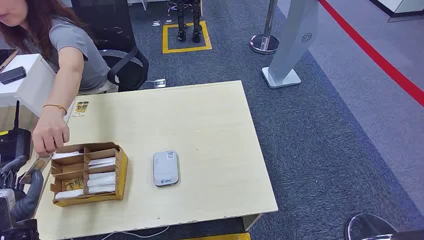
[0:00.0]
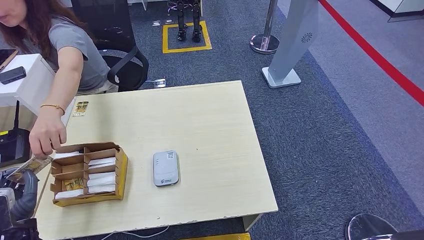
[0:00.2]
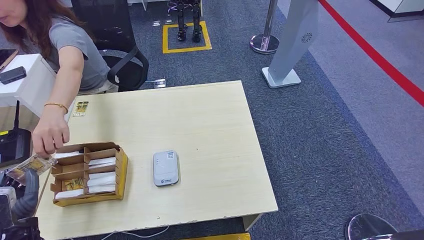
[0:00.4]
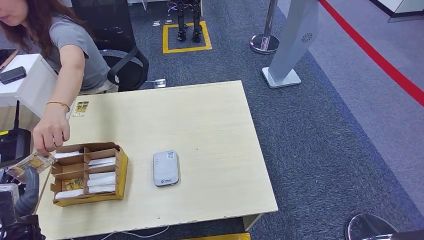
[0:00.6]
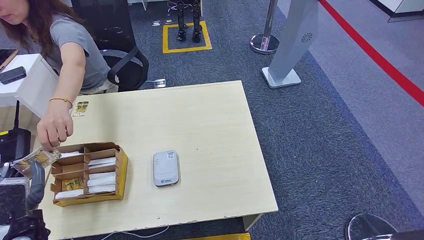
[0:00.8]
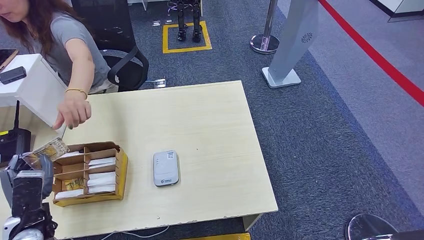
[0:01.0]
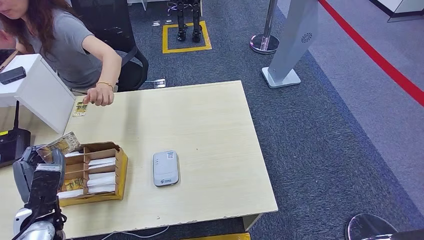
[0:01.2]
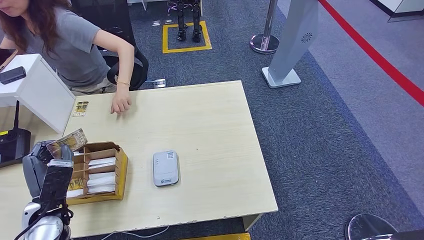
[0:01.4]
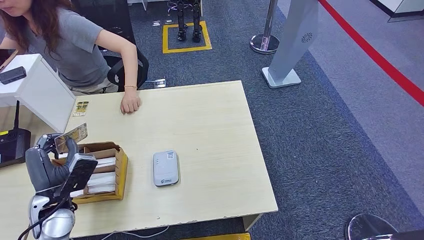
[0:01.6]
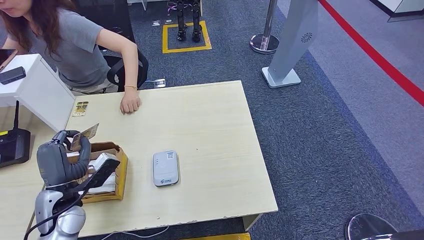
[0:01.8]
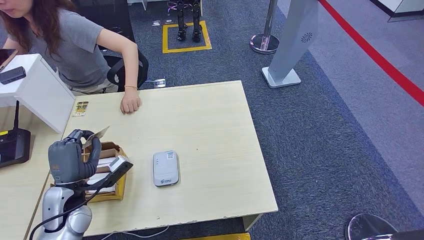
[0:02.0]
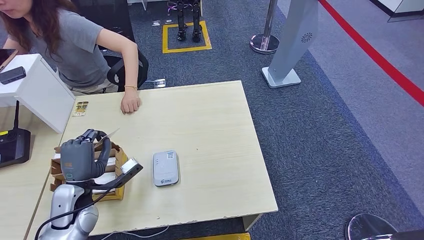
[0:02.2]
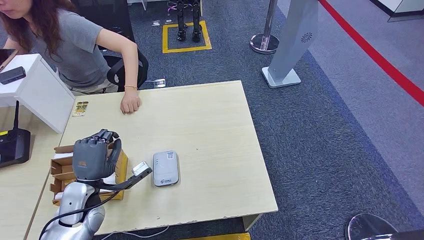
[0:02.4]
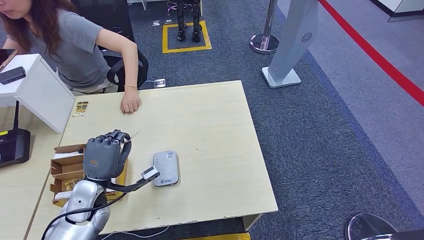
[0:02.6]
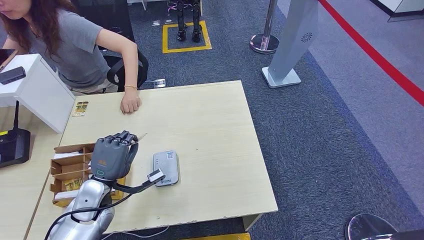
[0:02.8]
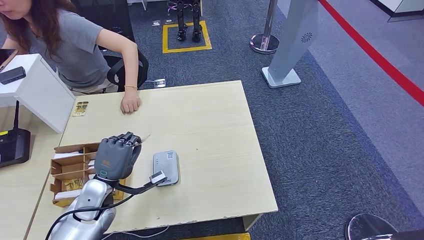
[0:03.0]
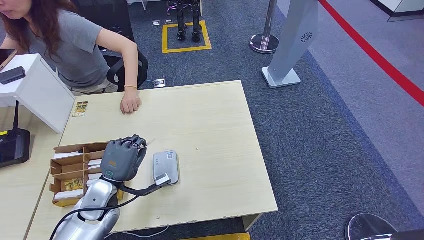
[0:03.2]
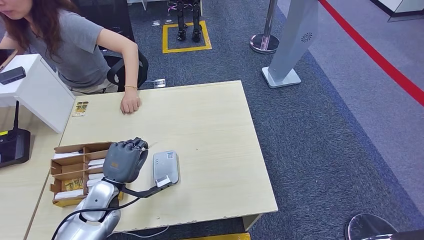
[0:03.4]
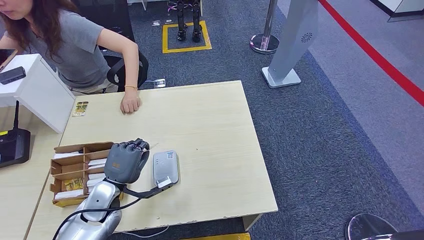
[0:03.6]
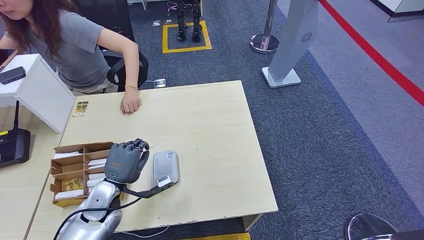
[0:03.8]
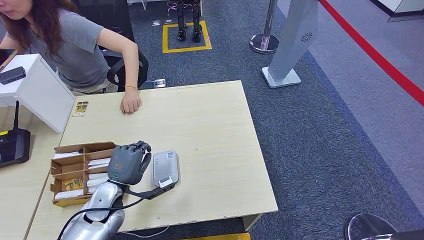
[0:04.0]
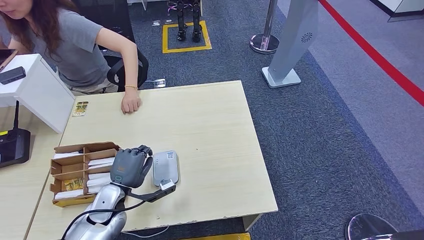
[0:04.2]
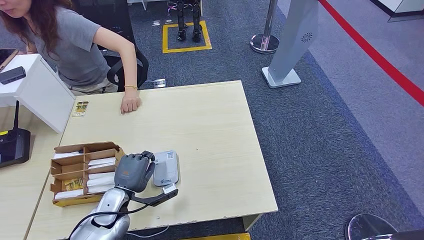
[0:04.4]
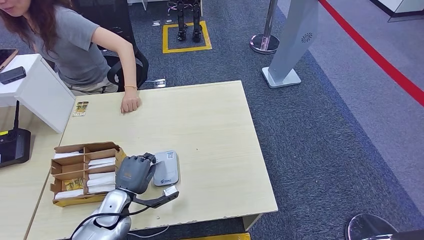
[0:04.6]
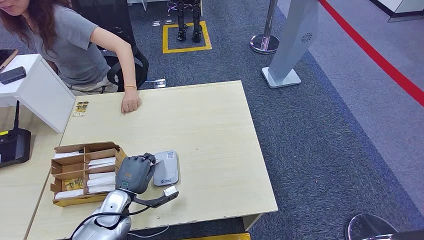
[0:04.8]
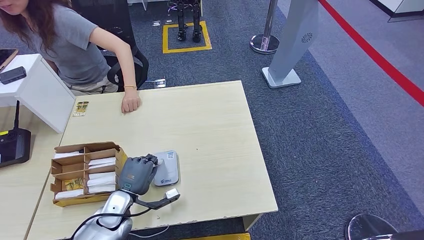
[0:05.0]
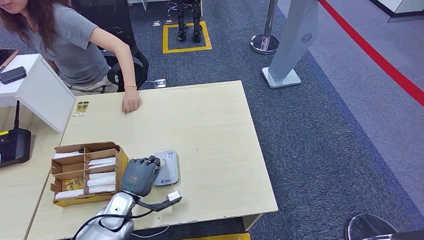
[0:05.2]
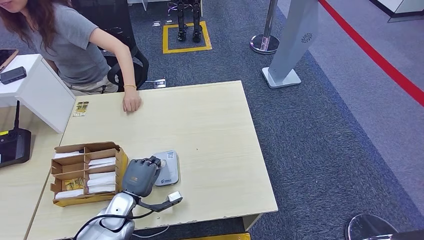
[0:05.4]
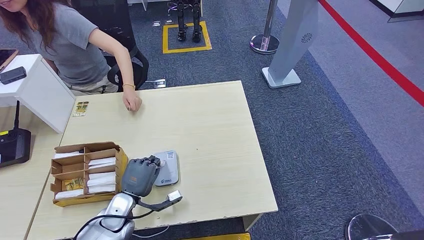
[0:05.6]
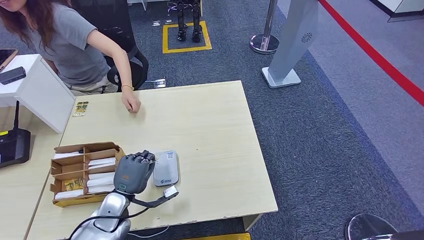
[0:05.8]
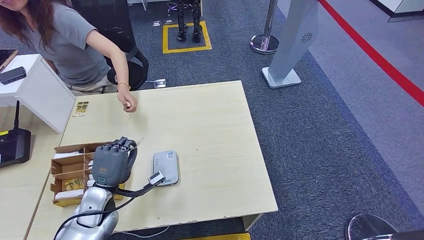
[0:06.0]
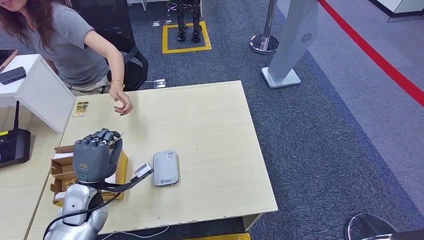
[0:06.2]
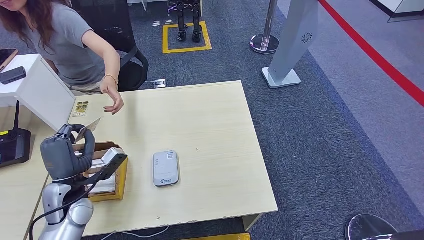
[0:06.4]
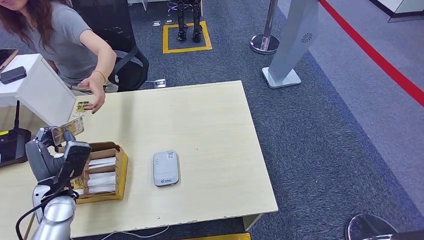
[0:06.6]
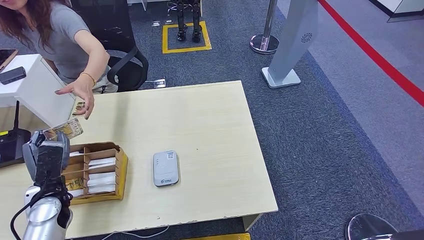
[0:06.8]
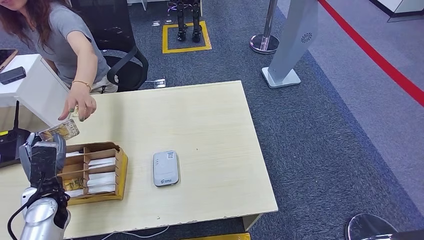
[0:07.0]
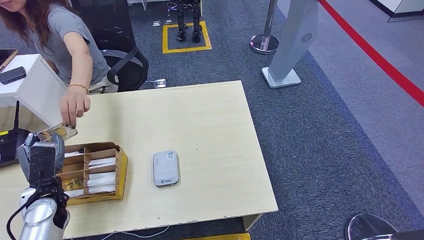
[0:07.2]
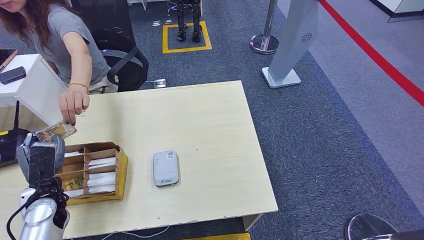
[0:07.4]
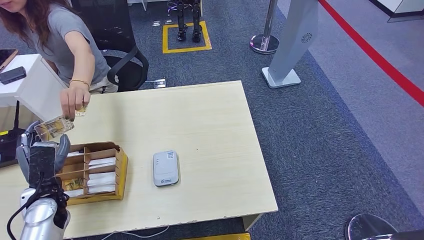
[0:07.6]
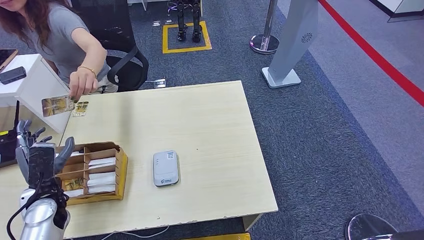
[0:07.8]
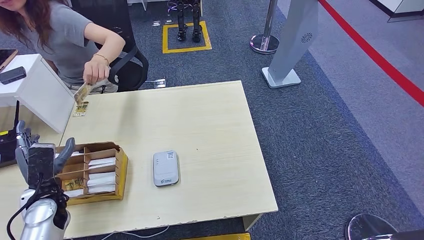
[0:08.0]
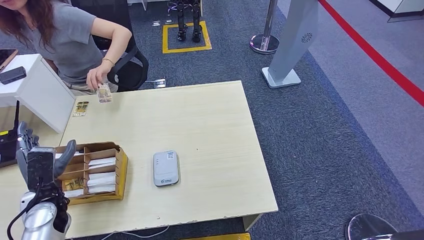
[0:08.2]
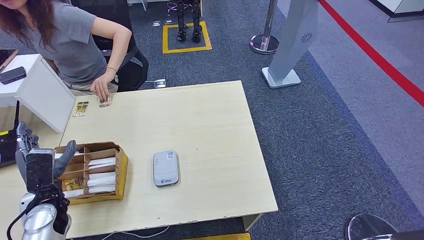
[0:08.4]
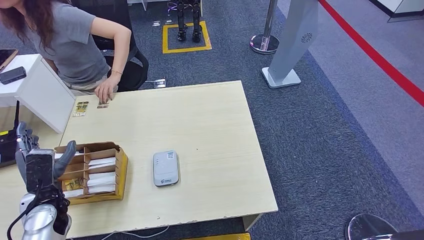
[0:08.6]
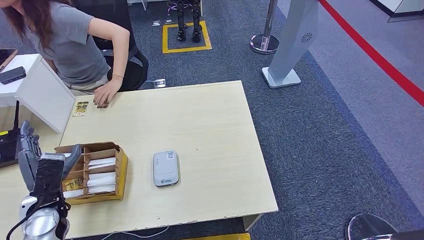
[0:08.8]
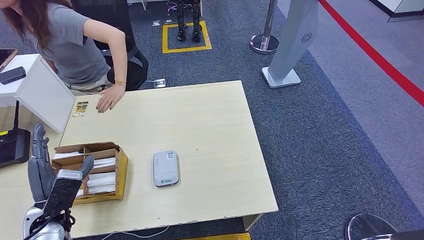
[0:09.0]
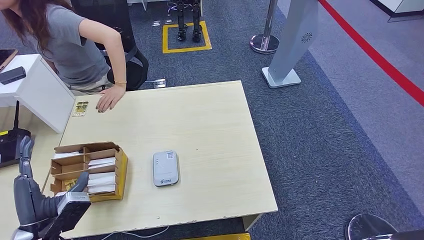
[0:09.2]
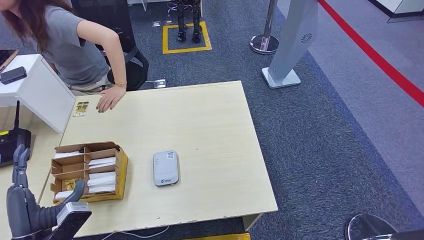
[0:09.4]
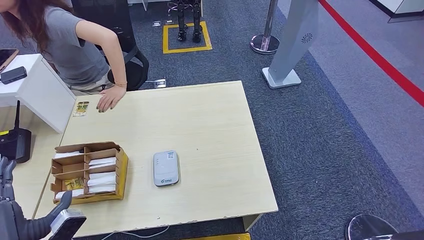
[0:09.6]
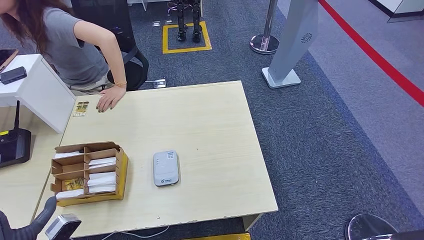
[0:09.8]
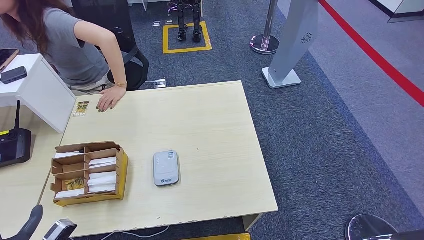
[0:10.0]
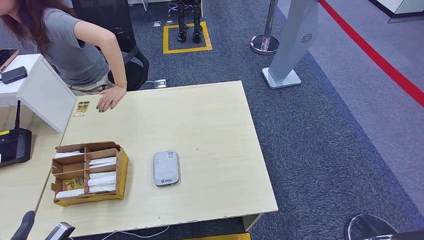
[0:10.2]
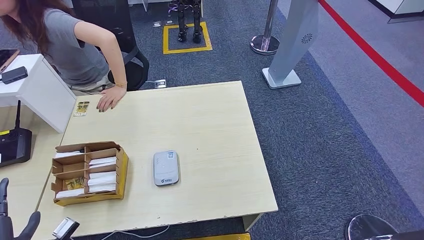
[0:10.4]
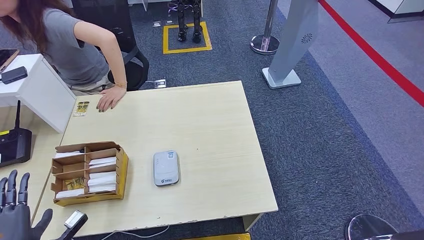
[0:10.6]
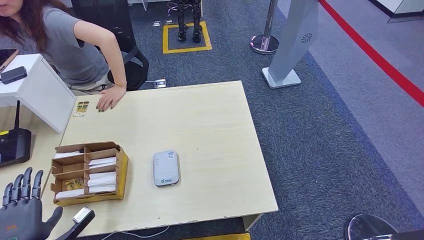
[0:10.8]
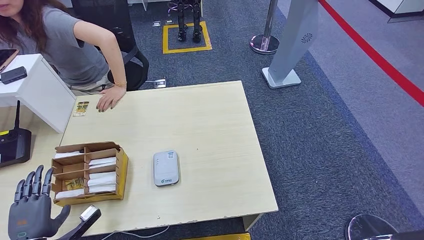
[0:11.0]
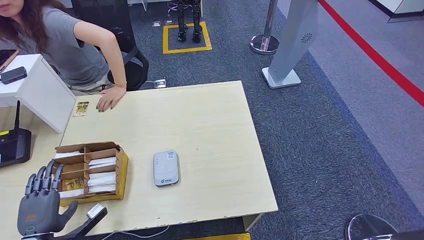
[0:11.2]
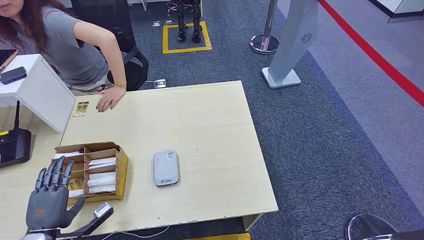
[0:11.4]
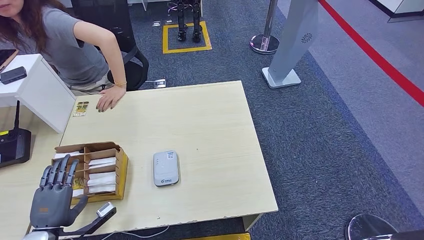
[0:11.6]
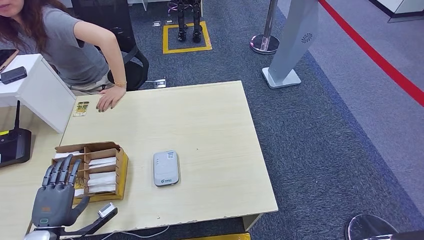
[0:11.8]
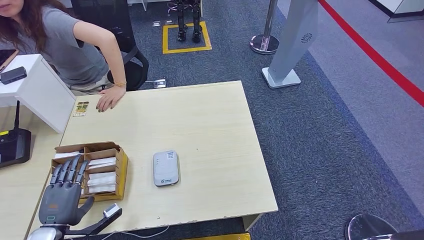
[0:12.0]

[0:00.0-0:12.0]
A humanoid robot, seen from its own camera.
Step, 0:00.0 to 0:01.0: Take the ID card from the person's hand.
Step, 0:01.2 to 0:05.2: Place the ID card on the card reader.
Step, 0:05.4 to 0:07.4: Hand the ID card to the person.
0:01.6 to 0:03.0: The left hand is displaced to the right by approximately 10 cm.
0:03.0 to 0:04.4: The left hand goes about 5 cm downward.
0:06.0 to 0:07.6: The left hand moves to the left, approximately 10 cm.
0:07.6 to 0:09.0: The left hand travels backward by approximately 5 cm.
0:09.0 to 0:10.4: The left hand moves backward and to the left, some 15 cm.
0:10.4 to 0:12.0: The left hand moves forward, approximately 5 cm.

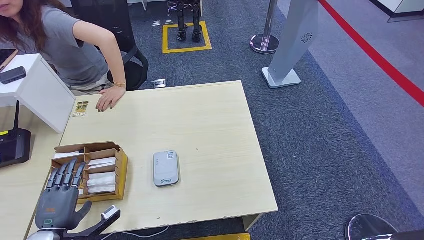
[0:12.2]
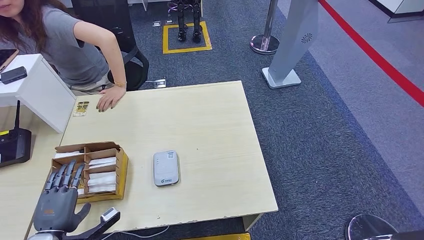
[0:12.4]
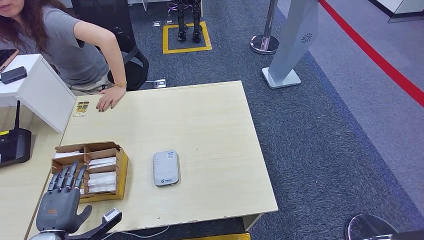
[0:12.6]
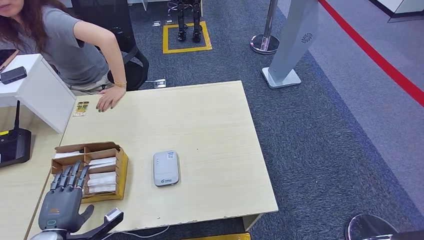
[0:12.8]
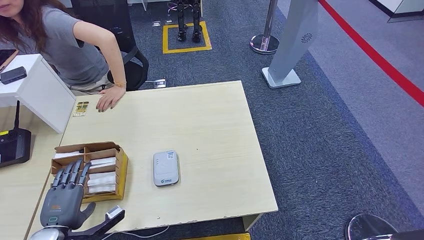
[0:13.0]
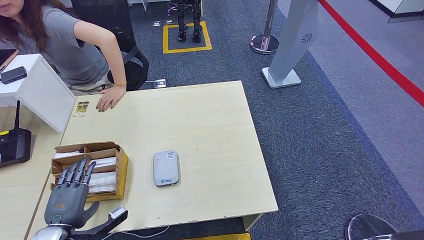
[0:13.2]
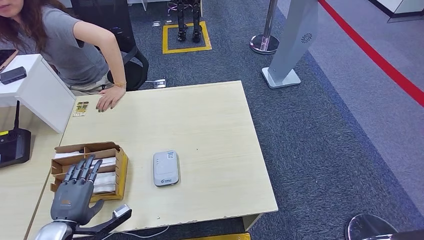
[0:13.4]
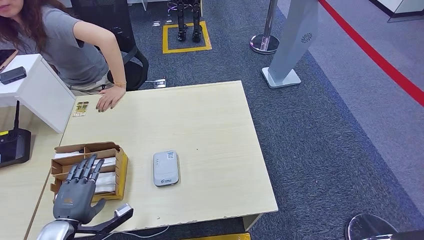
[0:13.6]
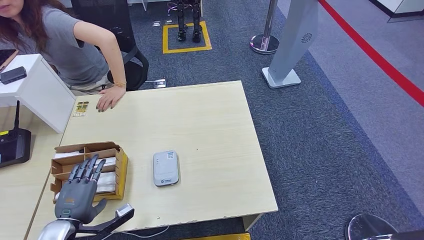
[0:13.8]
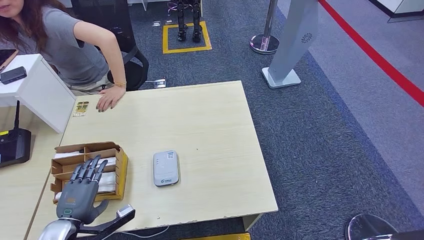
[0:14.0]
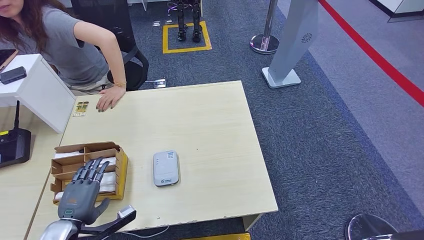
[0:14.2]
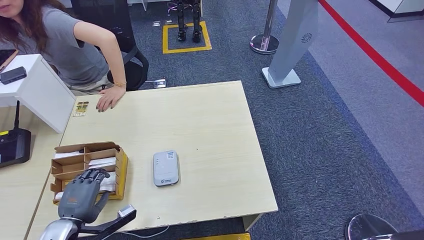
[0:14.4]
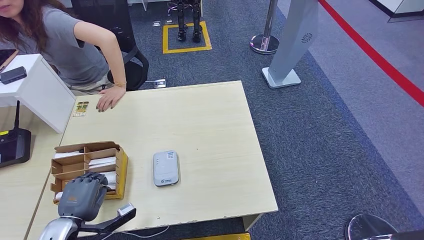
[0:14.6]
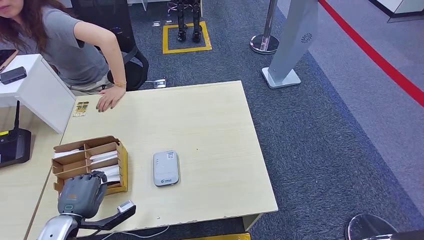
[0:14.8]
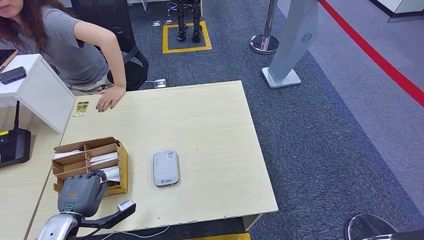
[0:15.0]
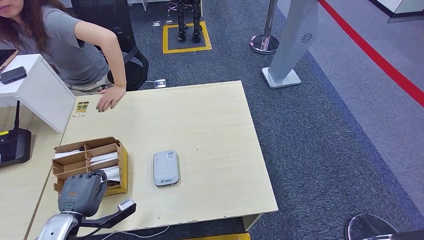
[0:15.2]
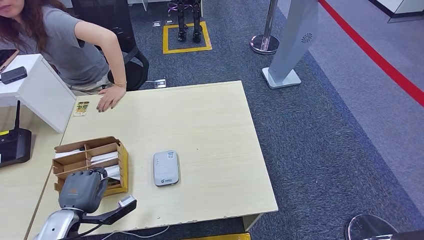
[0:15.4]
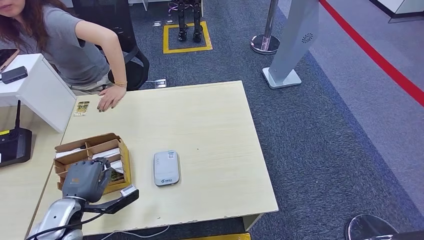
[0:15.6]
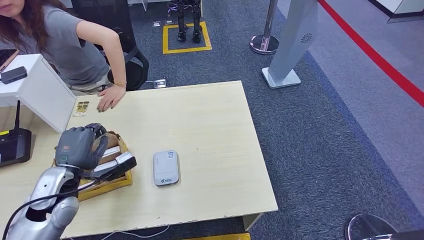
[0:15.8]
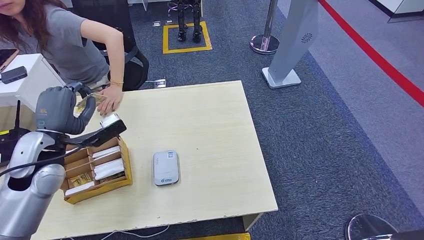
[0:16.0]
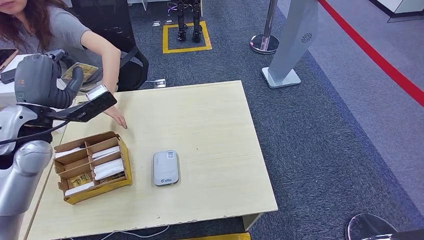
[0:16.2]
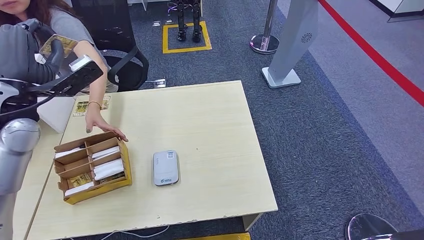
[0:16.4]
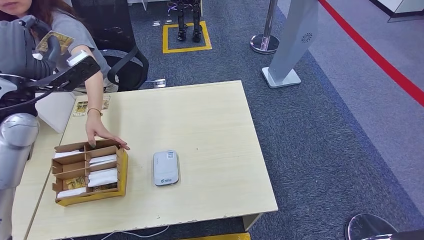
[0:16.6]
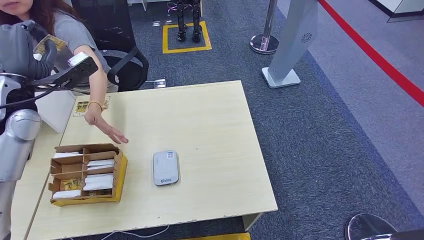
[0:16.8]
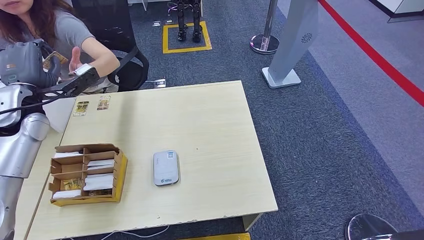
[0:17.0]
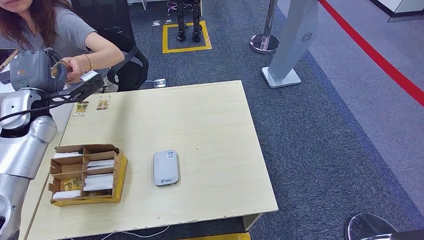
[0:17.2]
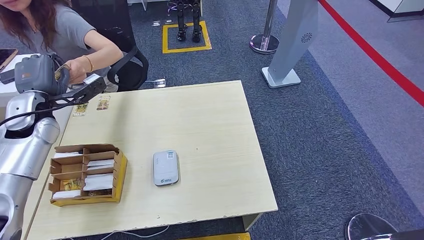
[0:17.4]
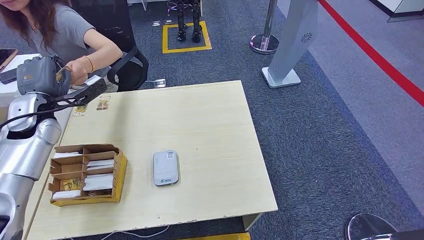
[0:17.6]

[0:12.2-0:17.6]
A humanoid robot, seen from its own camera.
Step, 0:12.2 to 0:15.6: Pick up the room key from the key card box.
Step, 0:15.8 to 0:17.6: Hand the room key to the person.
0:12.2 to 0:15.0: The hands stay close to where they were, moving slightly.
0:15.0 to 0:16.2: The left hand goes roughly 25 cm upward and forward.
0:16.2 to 0:17.6: The left hand goes roughly 10 cm forward.
